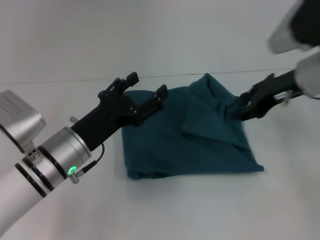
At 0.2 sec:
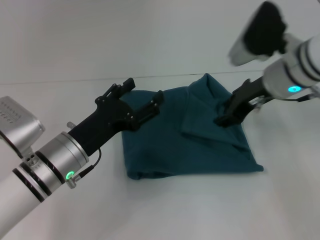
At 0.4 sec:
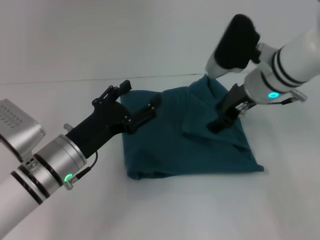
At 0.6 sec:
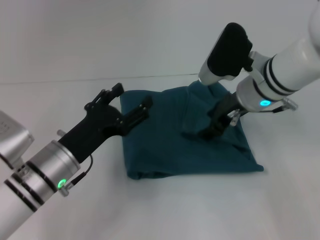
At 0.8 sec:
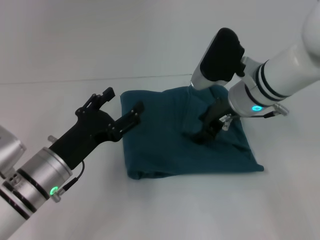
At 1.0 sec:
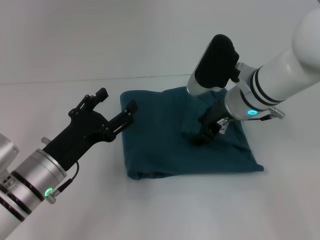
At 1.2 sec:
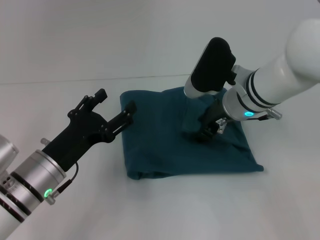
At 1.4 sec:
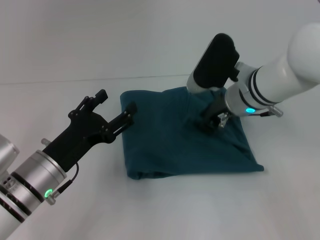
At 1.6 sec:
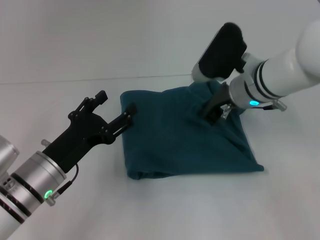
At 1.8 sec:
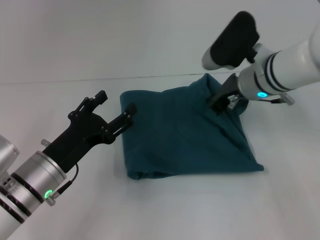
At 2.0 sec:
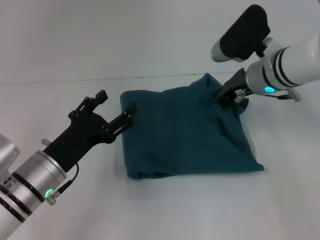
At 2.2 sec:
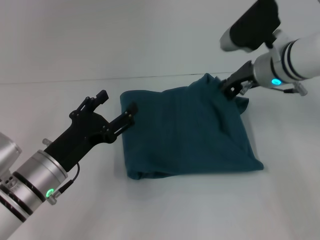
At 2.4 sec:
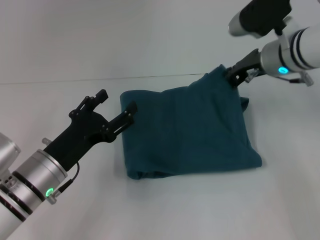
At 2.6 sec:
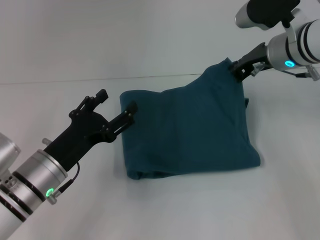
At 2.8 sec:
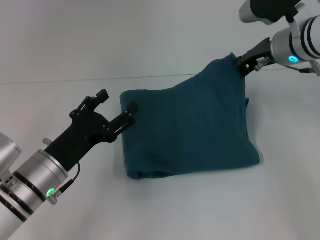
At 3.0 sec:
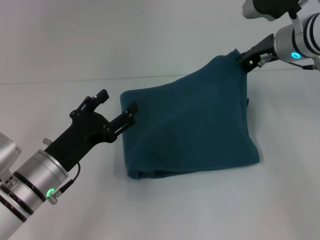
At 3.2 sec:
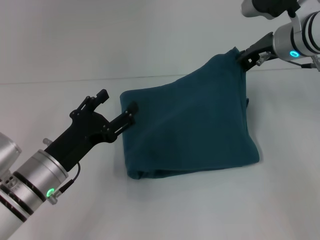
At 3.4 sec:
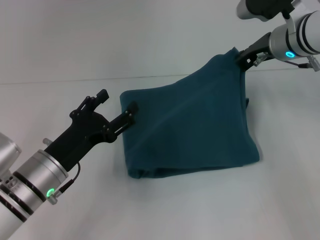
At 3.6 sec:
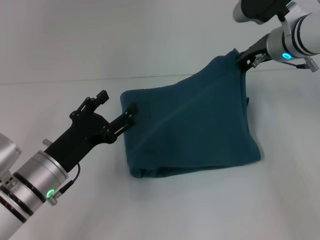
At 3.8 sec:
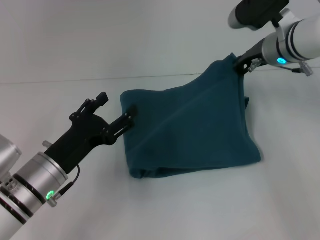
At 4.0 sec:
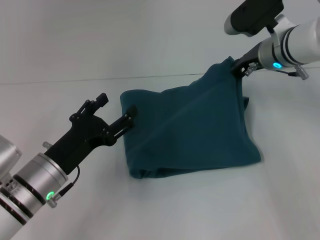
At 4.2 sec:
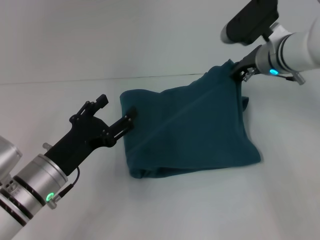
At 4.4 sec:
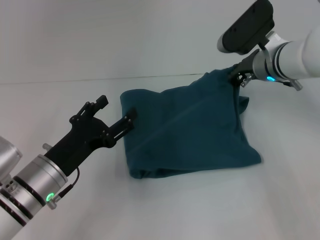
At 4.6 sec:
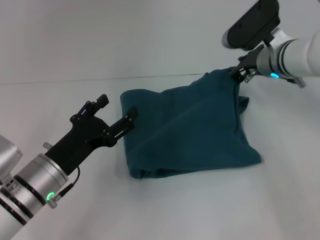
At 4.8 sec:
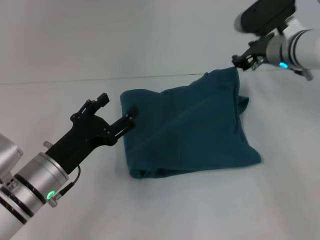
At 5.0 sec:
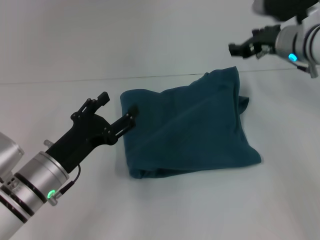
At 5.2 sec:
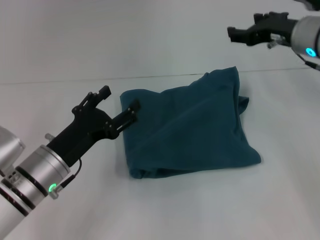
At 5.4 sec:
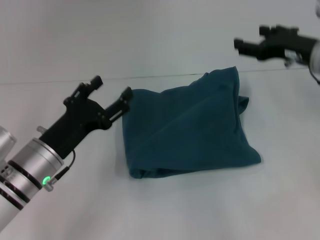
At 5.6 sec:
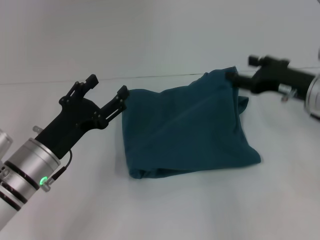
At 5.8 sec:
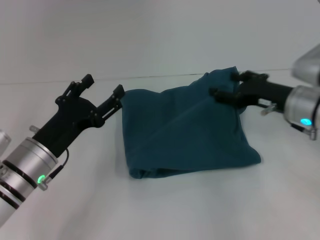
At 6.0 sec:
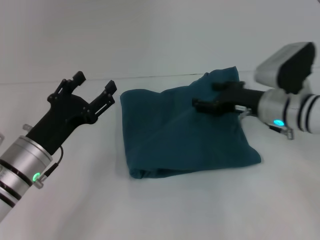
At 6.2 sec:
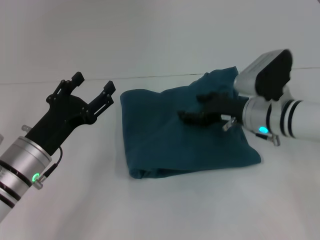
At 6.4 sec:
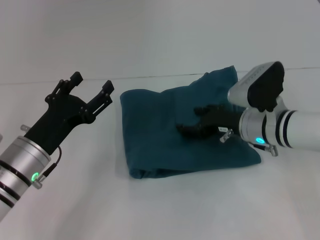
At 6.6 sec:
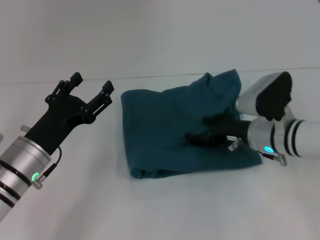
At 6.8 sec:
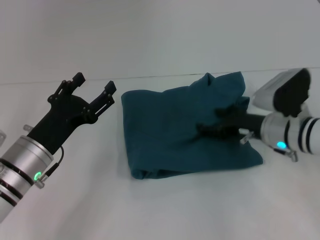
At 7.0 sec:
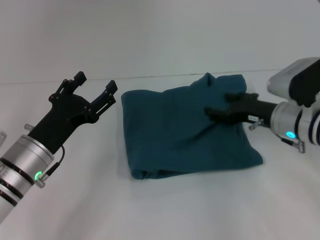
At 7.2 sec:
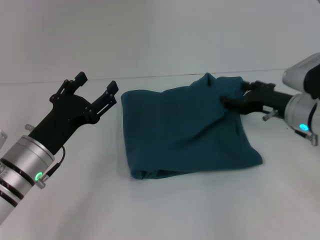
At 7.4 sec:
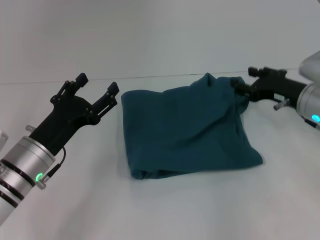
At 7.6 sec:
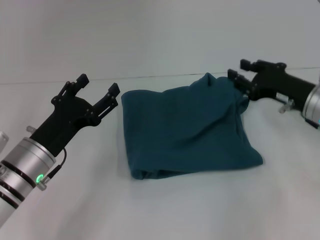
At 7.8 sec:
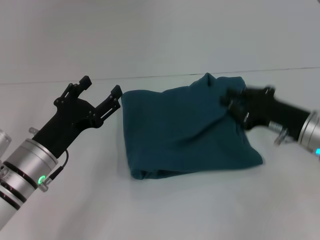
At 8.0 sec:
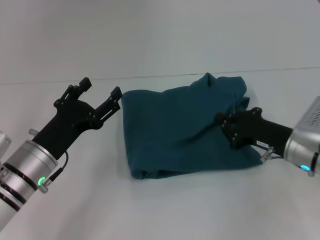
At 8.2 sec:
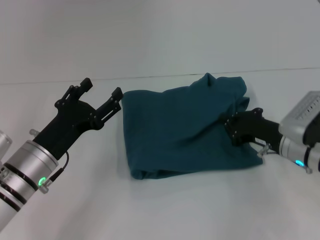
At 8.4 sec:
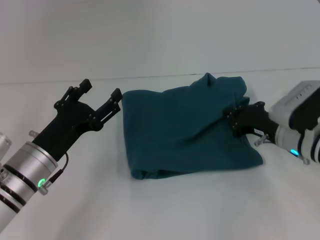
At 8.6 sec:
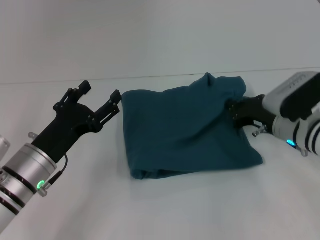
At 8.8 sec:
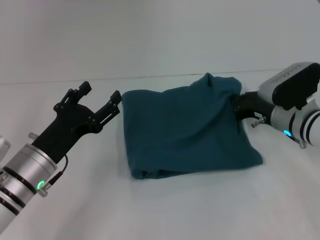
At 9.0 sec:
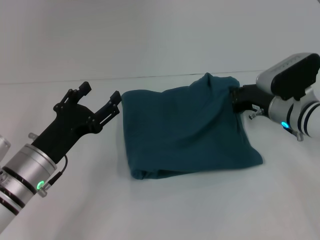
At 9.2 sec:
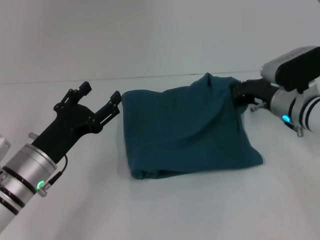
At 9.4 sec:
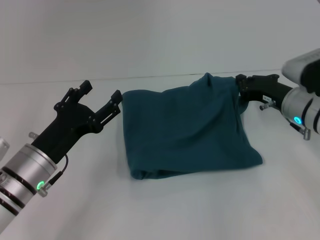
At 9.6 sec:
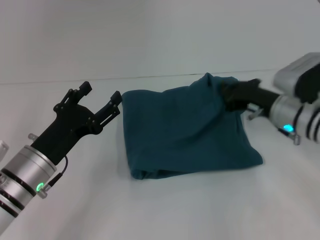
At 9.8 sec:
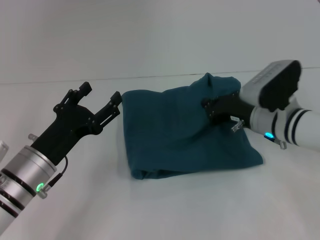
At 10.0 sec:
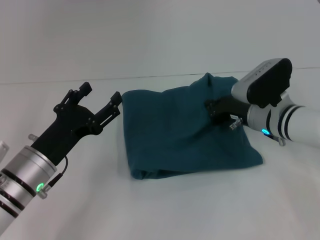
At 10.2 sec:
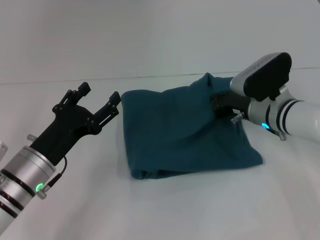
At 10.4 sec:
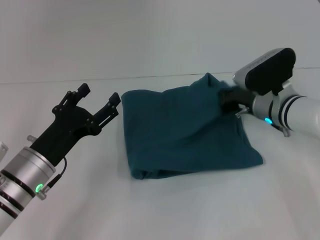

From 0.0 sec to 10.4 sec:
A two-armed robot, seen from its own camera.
From 0.0 sec to 1.4 sec: The right gripper heads to the left and downward, covering approximately 10 cm.
From 1.4 sec to 3.0 sec: The right gripper goes about 10 cm to the right and upward, and closes.
From 3.0 sec to 4.4 sec: The right gripper heads downward, covering approximately 5 cm.
From 4.4 sec to 6.0 sec: The right gripper moves backward, some 5 cm, and opens its fingers.
From 6.0 sec to 7.4 sec: The right gripper travels to the right by some 5 cm.
From 7.4 sec to 9.0 sec: The right gripper moves approximately 5 cm, and closes up.
From 9.0 sec to 10.4 sec: The grippers make only small movements.

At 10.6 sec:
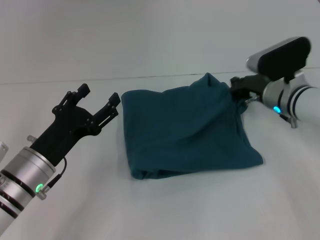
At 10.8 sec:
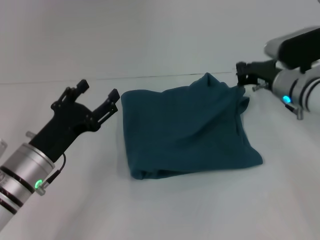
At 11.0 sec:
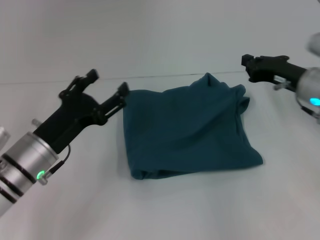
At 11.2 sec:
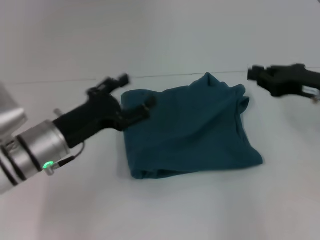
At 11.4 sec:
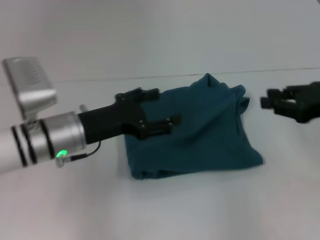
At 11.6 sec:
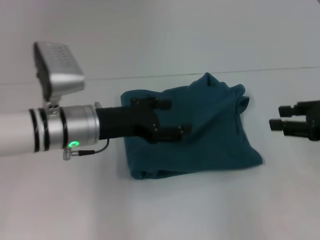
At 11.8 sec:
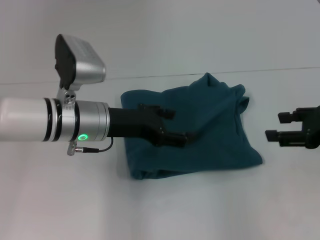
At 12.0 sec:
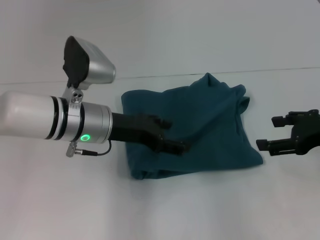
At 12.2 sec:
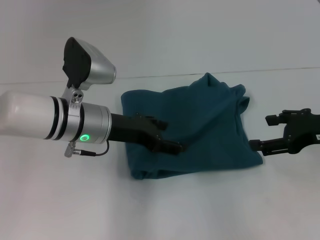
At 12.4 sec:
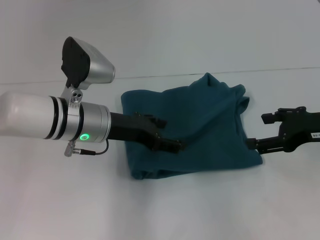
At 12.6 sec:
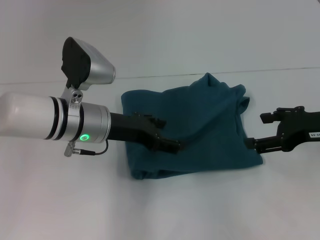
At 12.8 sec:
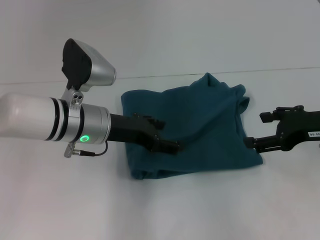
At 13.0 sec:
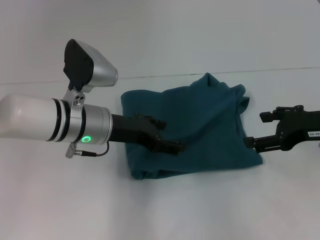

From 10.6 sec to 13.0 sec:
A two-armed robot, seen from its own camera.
From 10.6 sec to 11.8 sec: The left gripper shifts approximately 15 cm upward, to the right and forward; the right gripper heads backward, to the right and upward, covering roughly 20 cm, and opens its fingers.
From 11.8 sec to 13.0 sec: The right gripper opens its fingers.
